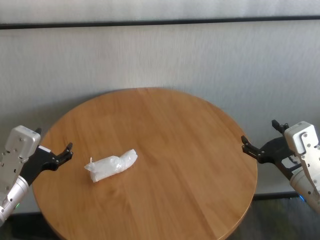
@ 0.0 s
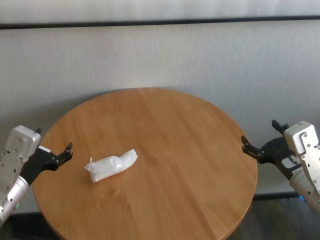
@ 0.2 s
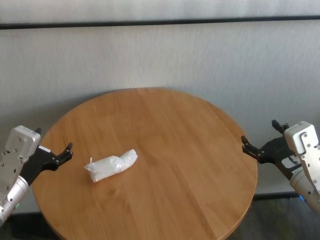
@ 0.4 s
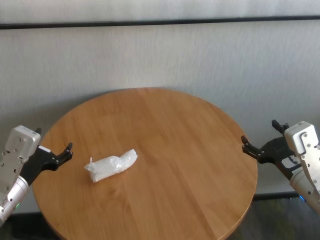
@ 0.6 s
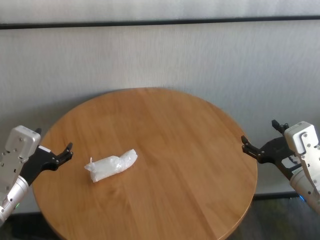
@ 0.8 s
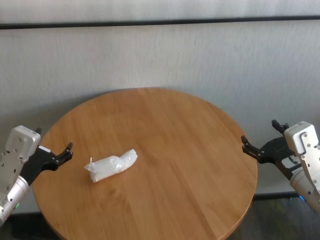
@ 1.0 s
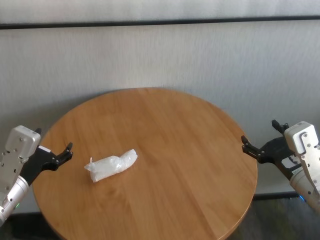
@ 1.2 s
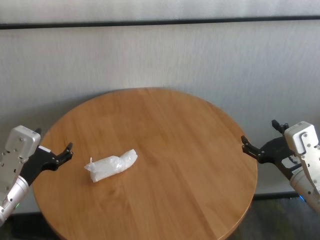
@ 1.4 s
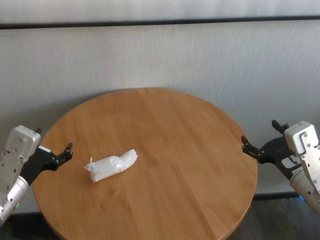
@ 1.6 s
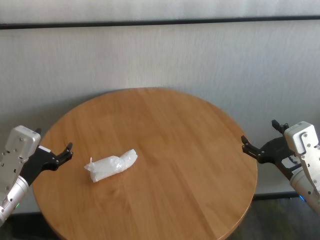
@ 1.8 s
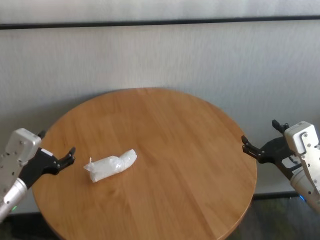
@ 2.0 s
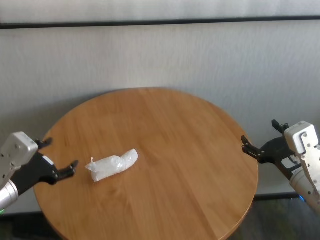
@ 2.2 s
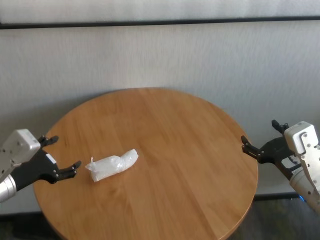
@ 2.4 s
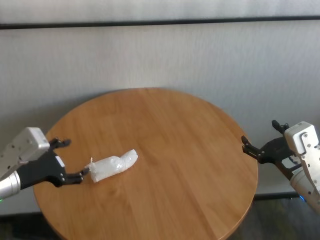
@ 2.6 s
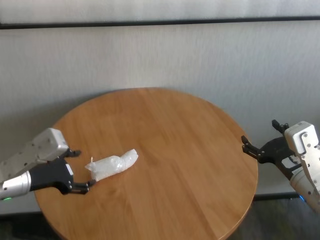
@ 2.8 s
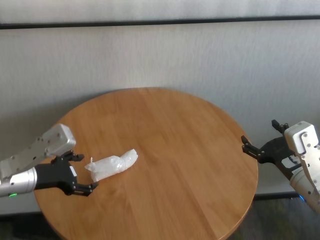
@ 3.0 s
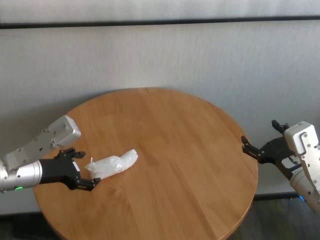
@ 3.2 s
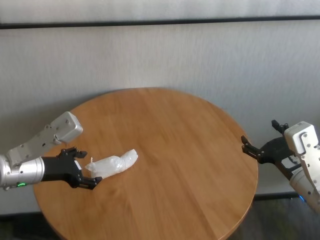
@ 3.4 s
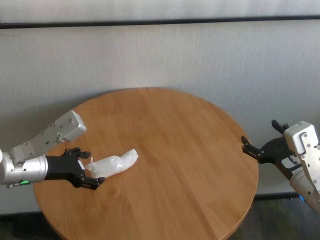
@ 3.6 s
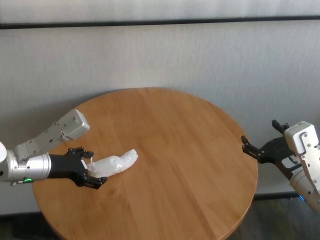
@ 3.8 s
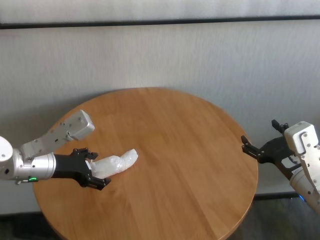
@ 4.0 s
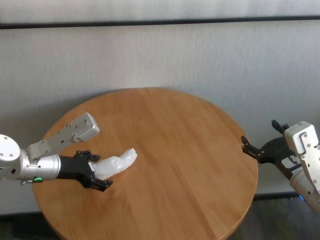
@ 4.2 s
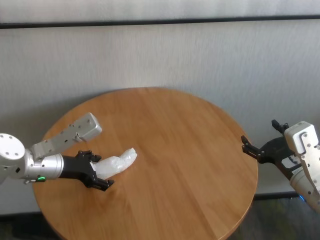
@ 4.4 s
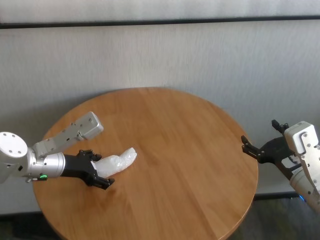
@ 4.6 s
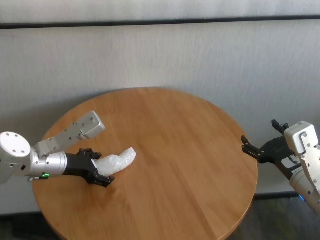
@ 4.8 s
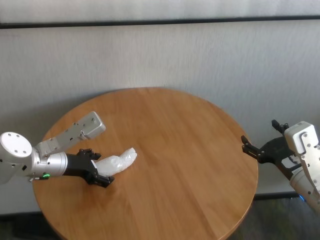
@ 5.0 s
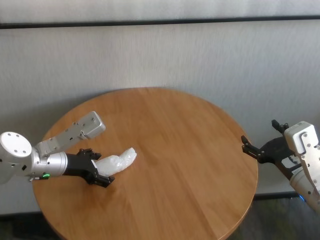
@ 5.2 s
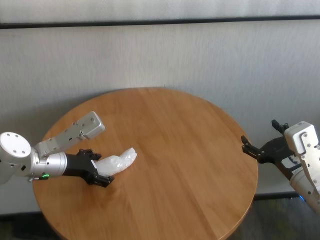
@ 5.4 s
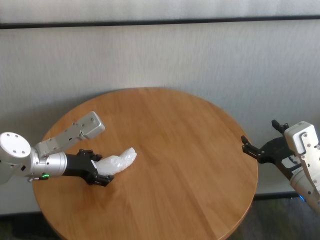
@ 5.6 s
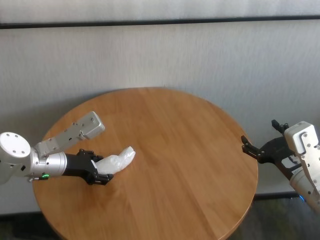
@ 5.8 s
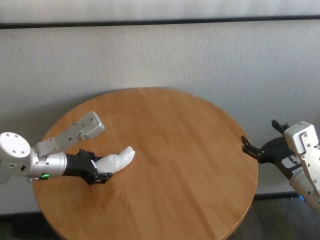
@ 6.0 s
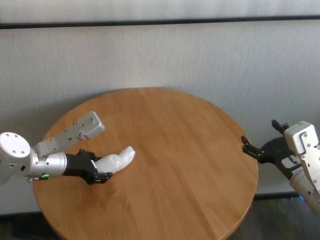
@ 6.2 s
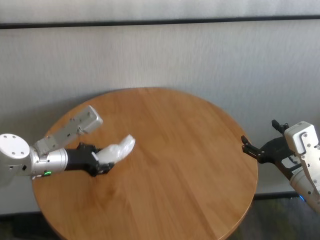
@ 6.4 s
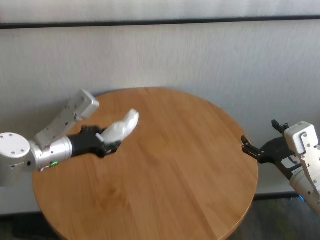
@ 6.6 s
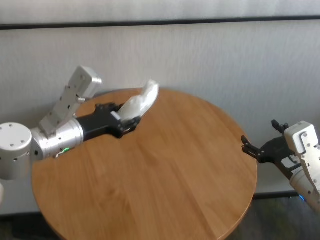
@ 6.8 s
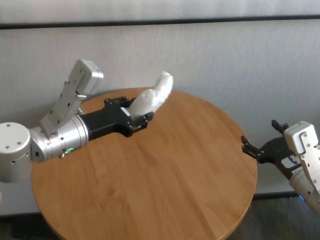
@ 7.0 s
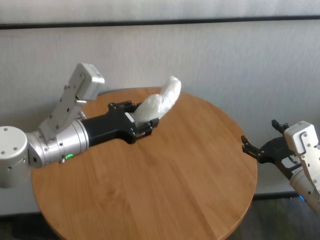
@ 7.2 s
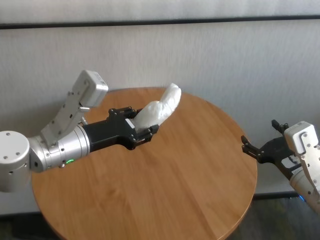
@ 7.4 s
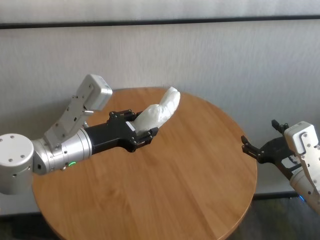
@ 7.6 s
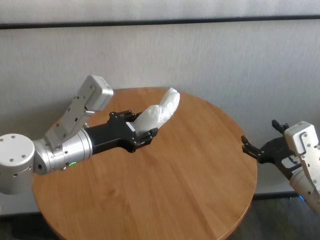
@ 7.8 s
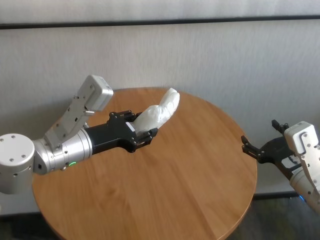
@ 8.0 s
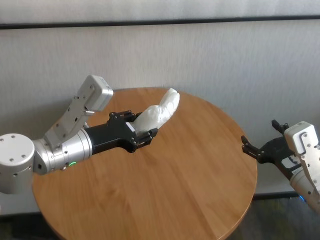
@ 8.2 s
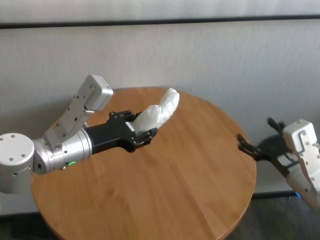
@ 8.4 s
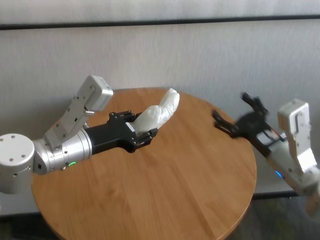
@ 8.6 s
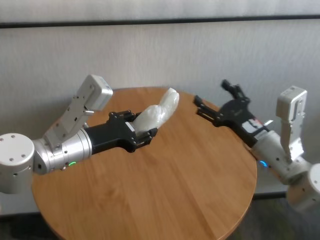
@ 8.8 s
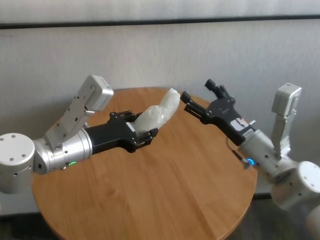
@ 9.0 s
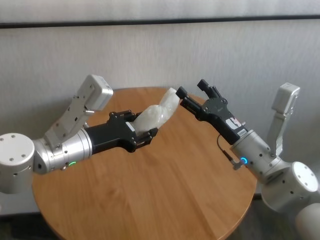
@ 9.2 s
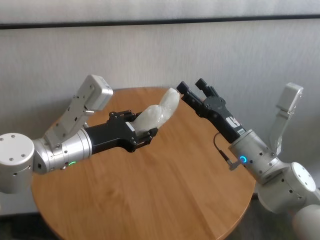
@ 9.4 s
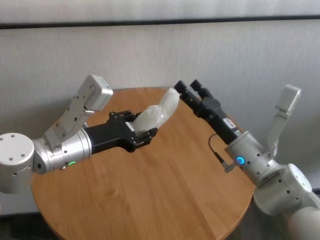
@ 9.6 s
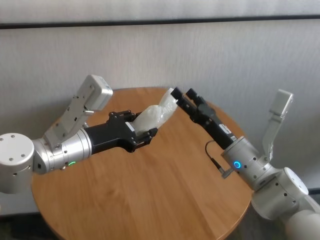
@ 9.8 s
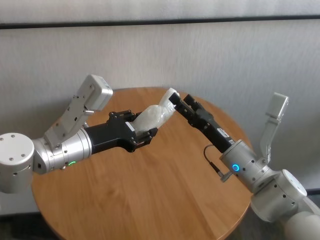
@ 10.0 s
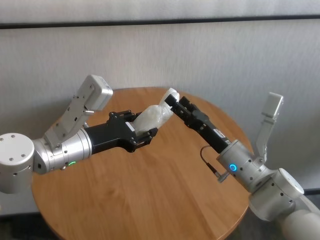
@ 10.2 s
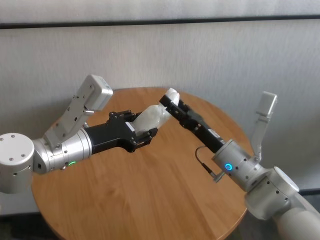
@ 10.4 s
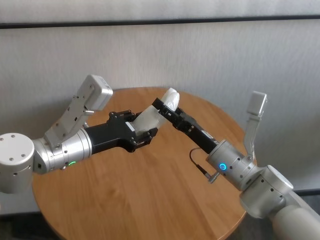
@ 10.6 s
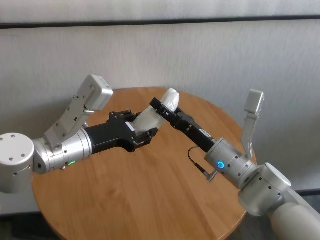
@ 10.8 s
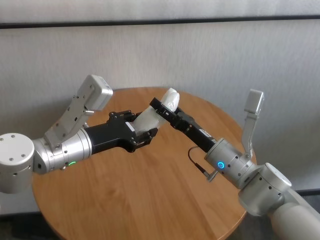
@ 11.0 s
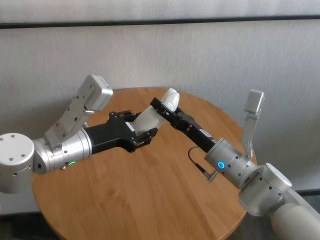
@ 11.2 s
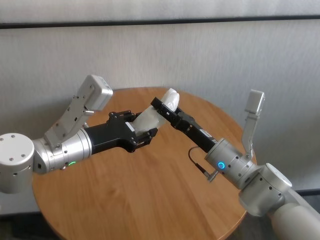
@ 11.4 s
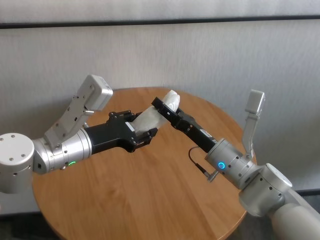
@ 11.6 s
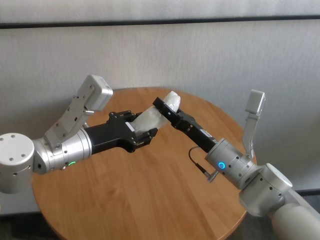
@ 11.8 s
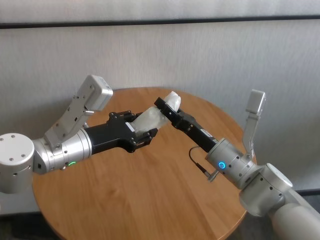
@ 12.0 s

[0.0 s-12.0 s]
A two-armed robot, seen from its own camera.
Task of the whole recording: One hand took the sandbag from the other hand and placed it on the table.
Step, 0.0 to 6.0 s: Grasp the paper ball with left gripper.

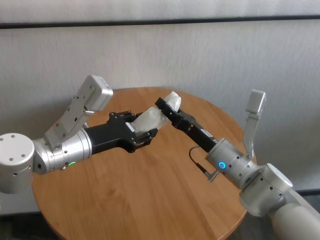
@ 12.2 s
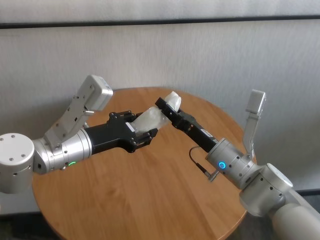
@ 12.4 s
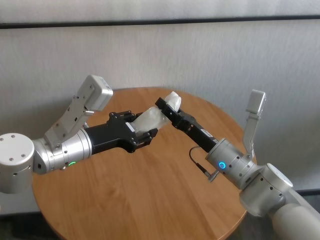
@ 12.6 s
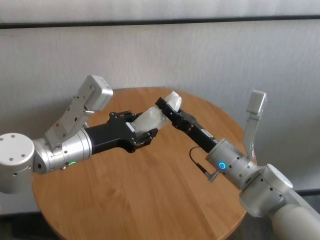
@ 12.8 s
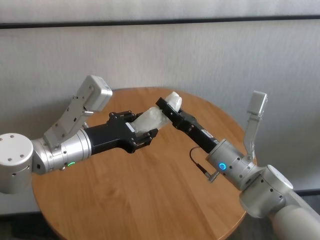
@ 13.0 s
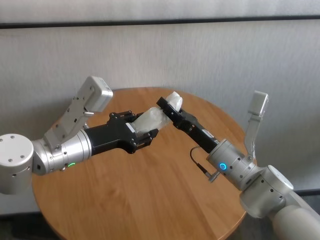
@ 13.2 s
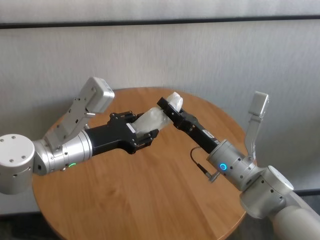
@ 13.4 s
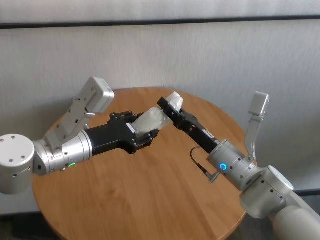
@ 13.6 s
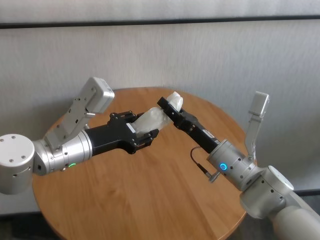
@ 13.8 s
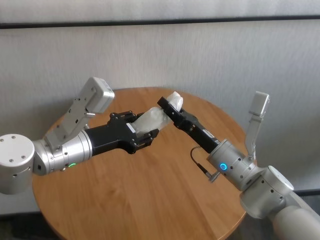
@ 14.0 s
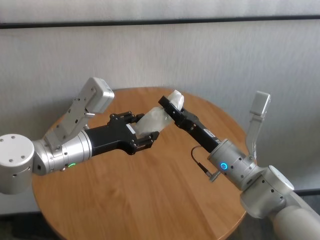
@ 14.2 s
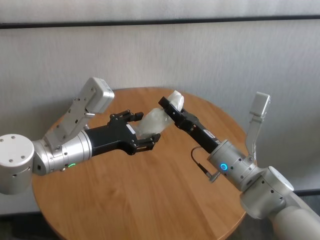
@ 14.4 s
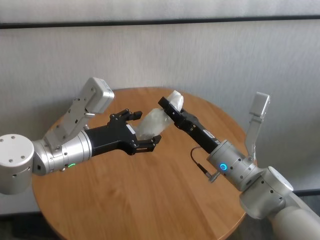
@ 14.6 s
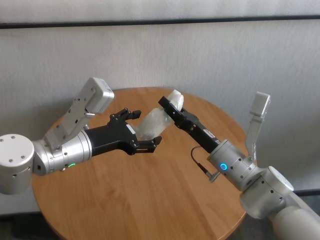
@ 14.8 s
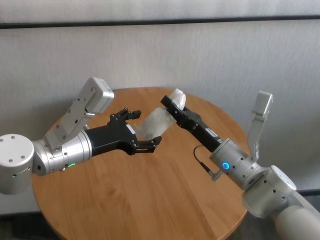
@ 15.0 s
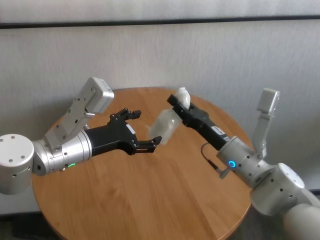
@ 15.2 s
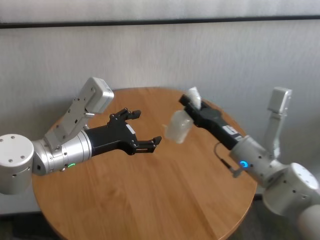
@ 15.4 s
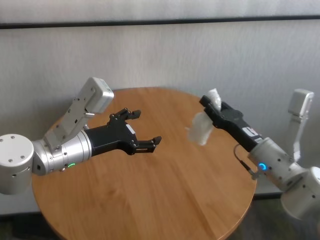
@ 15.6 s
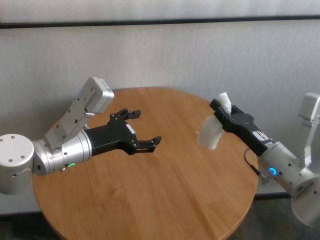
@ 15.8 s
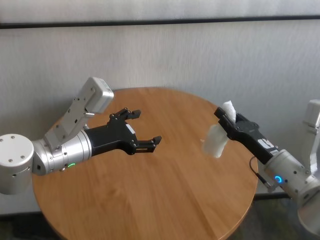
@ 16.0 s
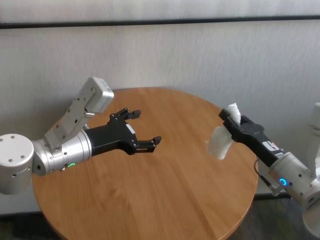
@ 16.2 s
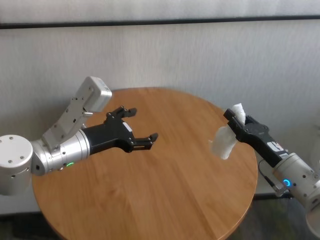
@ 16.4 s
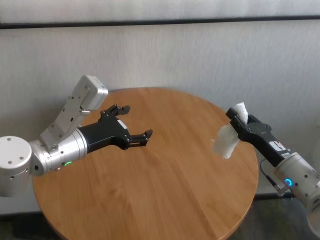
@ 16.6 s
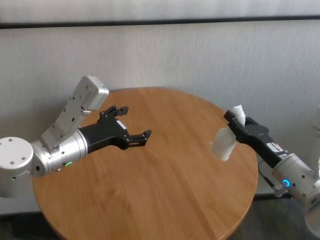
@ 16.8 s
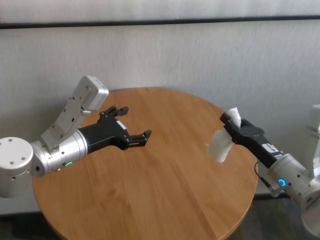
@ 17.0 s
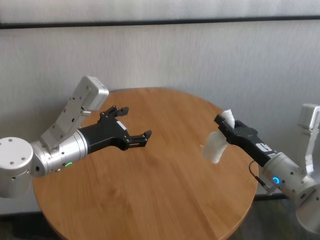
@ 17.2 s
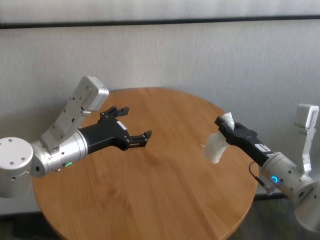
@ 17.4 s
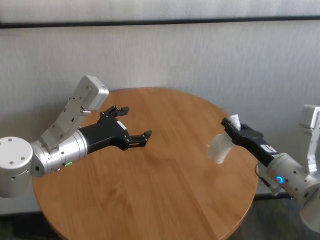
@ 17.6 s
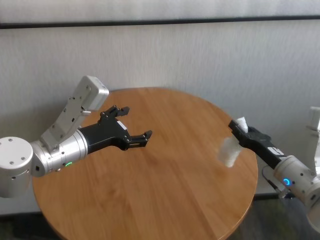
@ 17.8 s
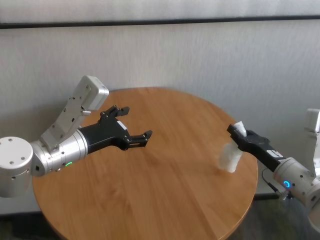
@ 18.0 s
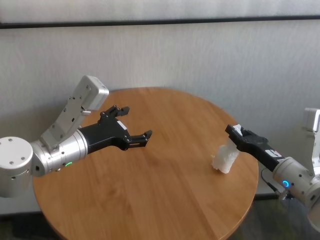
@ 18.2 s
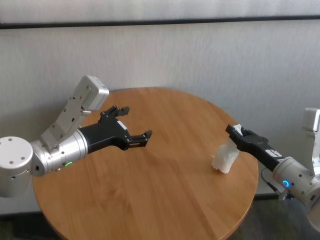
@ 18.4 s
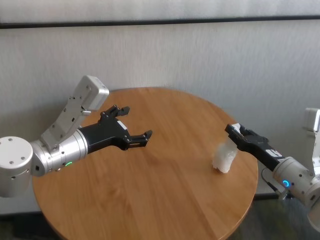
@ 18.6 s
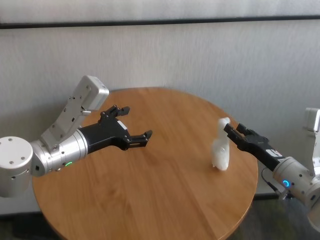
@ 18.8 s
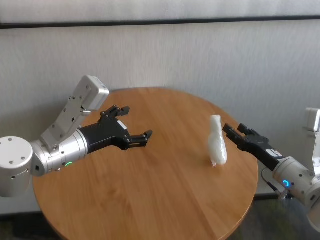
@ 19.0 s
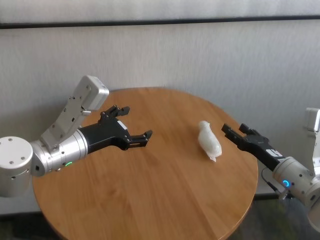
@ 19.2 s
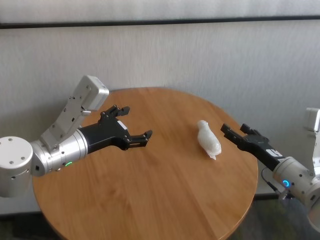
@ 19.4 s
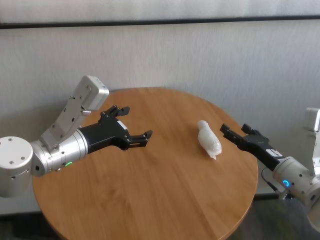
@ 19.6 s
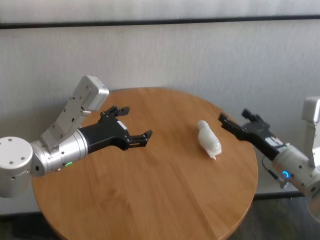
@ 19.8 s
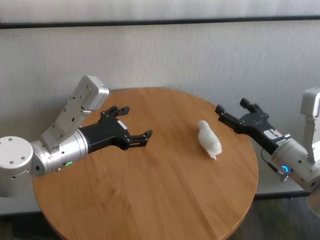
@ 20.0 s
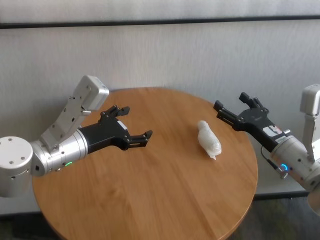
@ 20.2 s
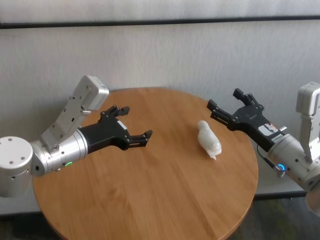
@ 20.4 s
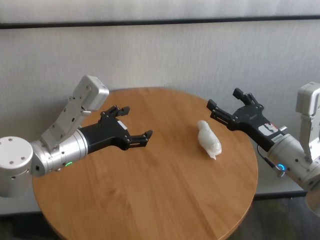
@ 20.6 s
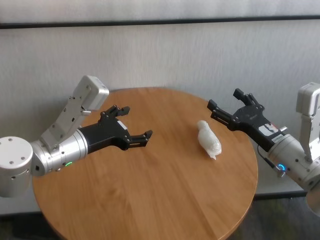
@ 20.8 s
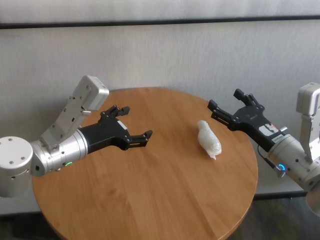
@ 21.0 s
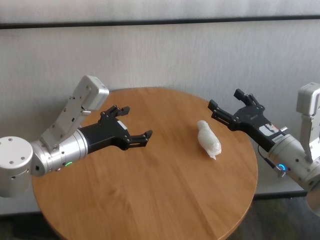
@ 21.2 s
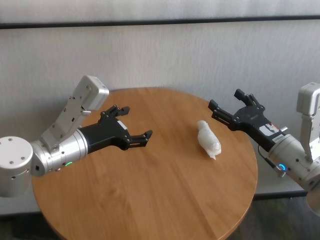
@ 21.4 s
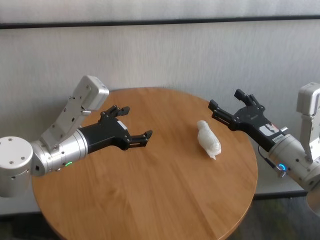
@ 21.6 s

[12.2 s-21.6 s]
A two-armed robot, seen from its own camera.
Task of the whole recording: One hand took the sandbag from the other hand and placed it on the table.
Step, 12.2 to 15.2 s: Pass the paper ball to the right gripper.
Step, 15.4 to 19.2 s: Place the paper ball on the table with right gripper.
